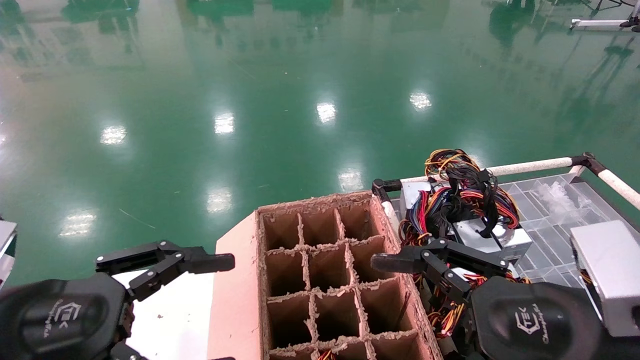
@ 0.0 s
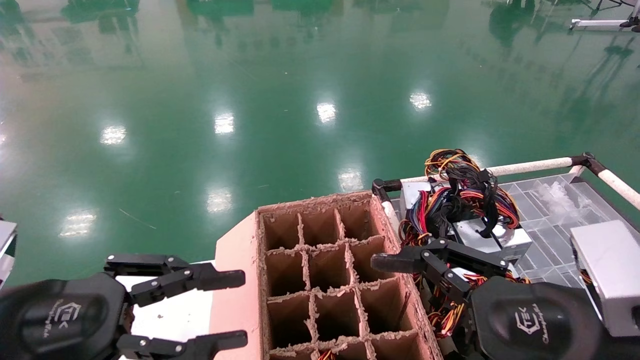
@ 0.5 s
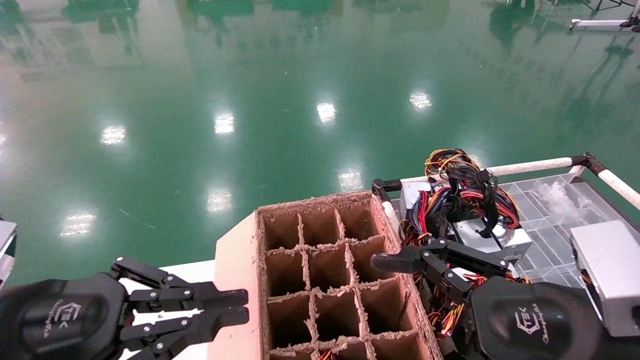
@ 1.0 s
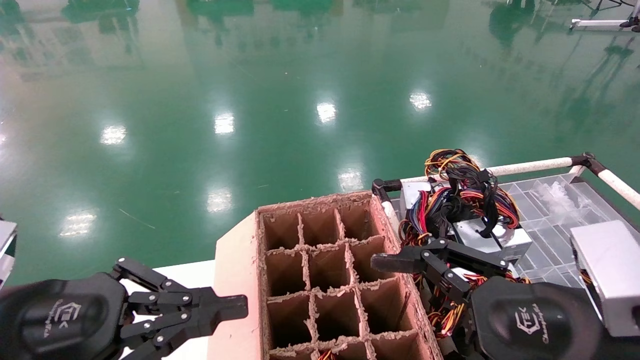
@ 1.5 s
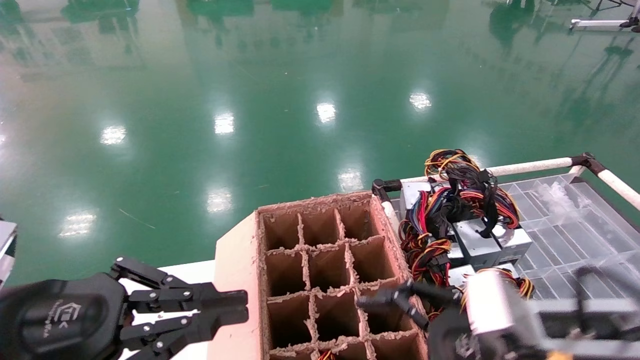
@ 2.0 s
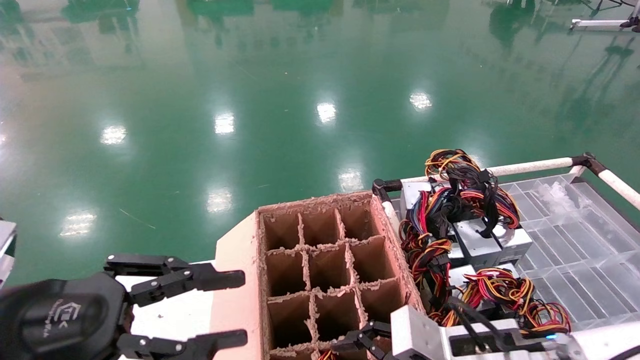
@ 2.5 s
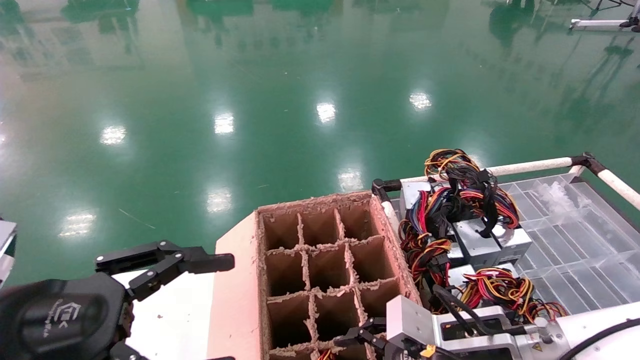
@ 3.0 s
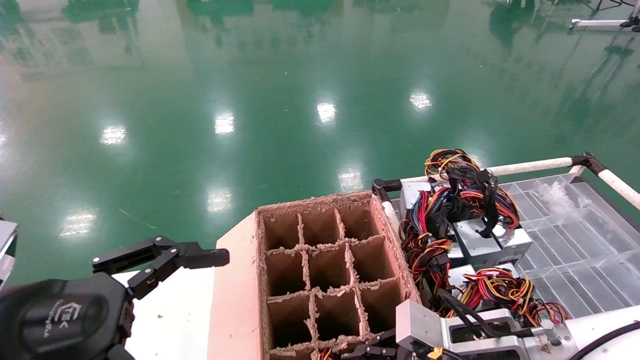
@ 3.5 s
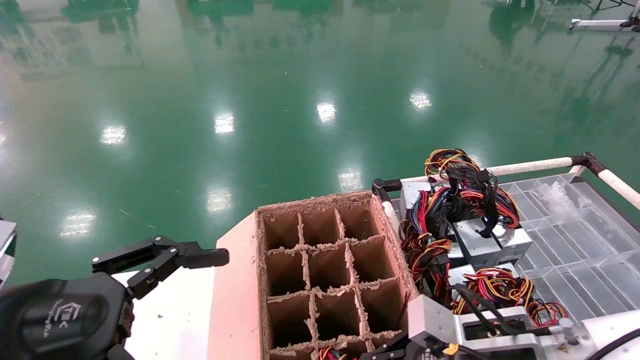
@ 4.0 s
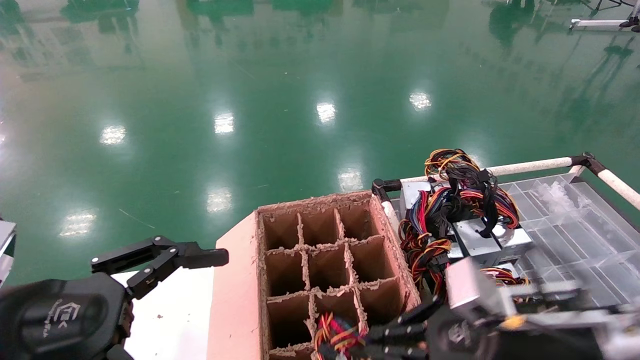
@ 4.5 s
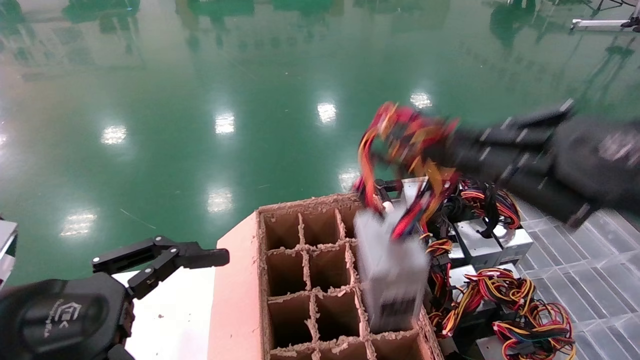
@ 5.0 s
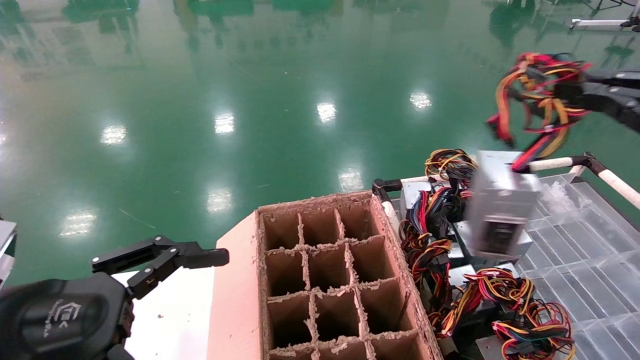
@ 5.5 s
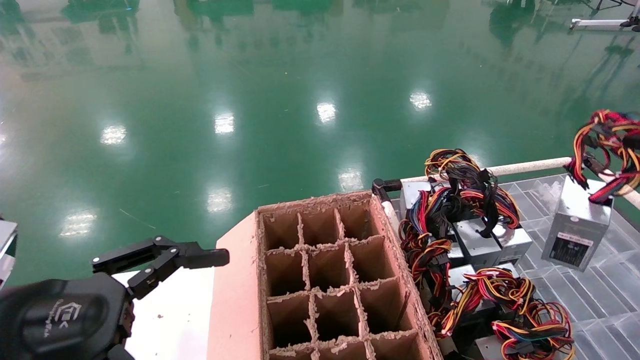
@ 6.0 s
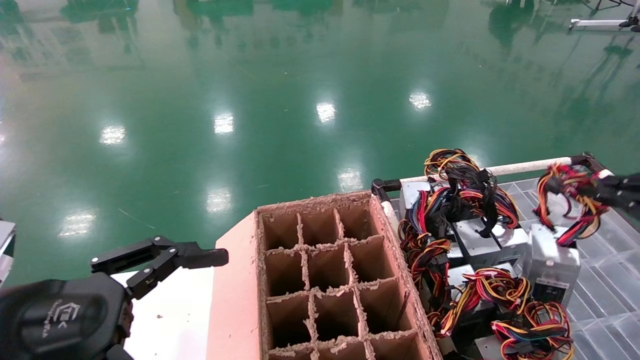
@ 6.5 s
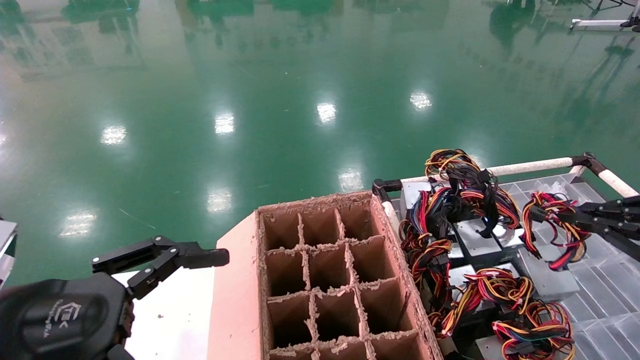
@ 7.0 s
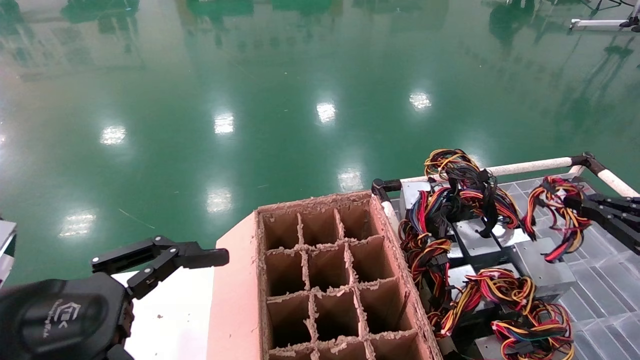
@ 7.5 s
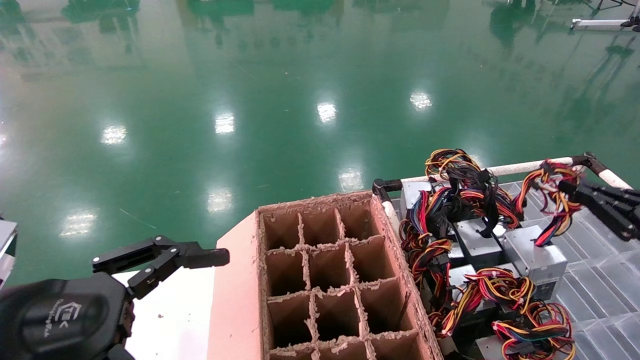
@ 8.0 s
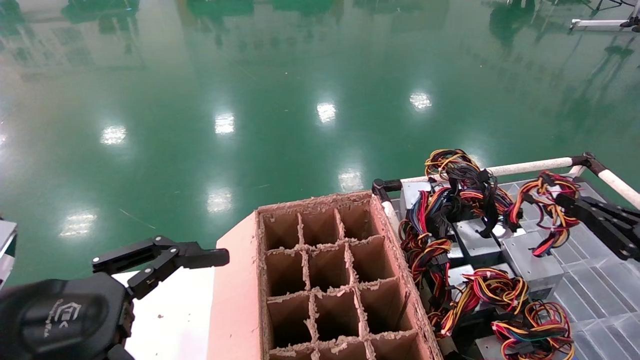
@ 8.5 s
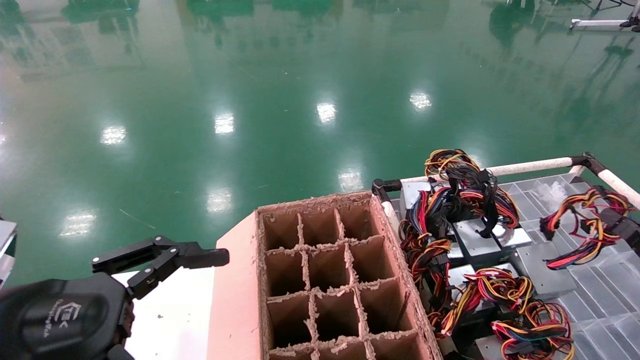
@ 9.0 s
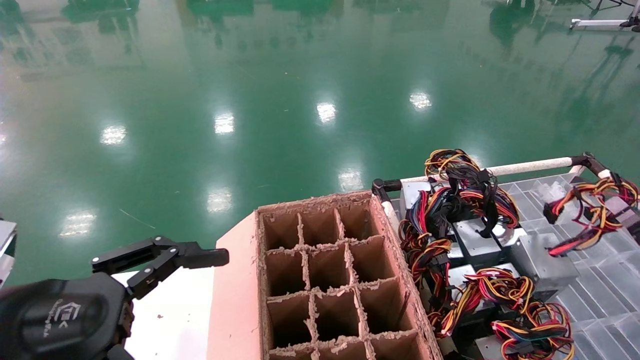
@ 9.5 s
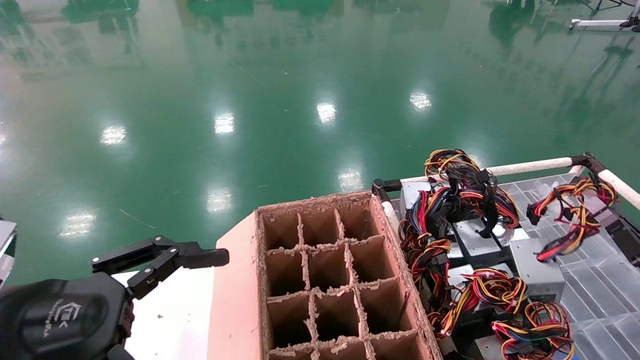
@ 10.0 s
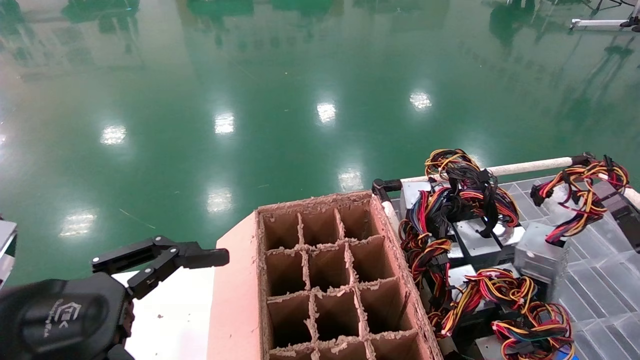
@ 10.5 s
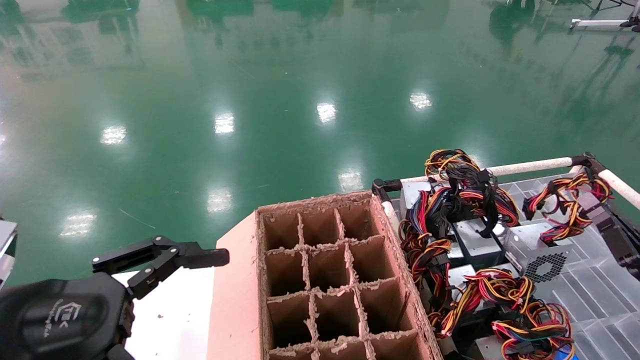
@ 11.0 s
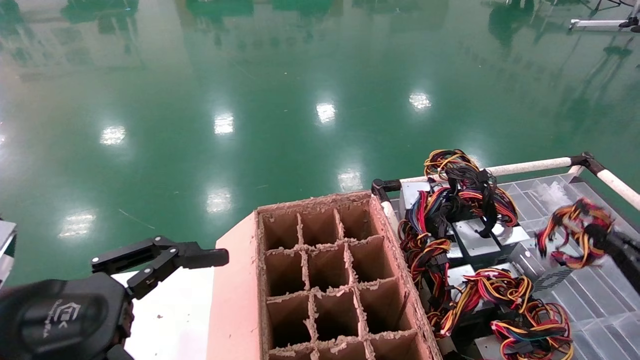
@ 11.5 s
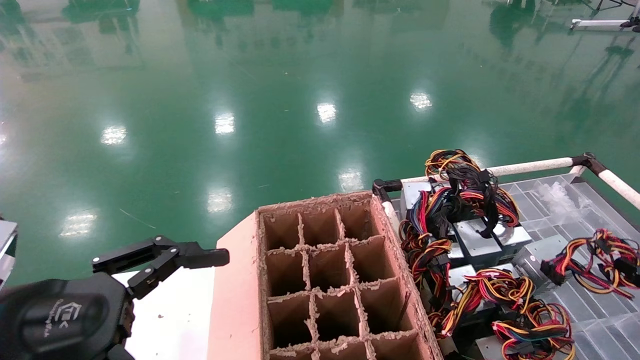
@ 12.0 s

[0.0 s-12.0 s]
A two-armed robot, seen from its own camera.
Step, 1.5 to 4.0 s: Grab and lift the power supply from the large box.
0.0 to 2.0 s: The right gripper travels downward by roughly 5 cm; the left gripper closes up.
2.0 to 4.0 s: The left gripper opens its fingers. Meanwhile the right gripper moves forward, some 5 cm, and closes its fingers.
4.0 to 6.0 s: The right gripper goes roughly 35 cm to the right and upward.
6.0 to 8.0 s: The right gripper goes about 15 cm downward and forward.
8.0 to 10.0 s: The right gripper moves downward, about 10 cm.
10.0 to 12.0 s: The right gripper is displaced backward and to the right by about 10 cm.

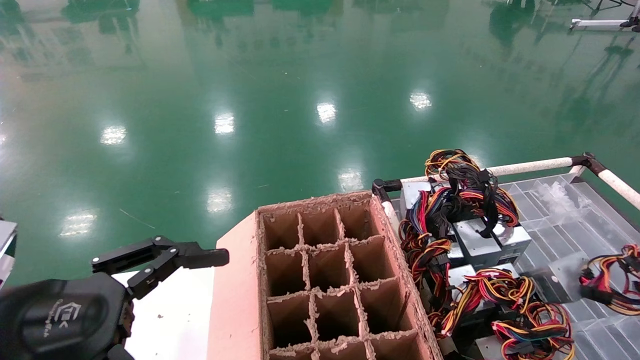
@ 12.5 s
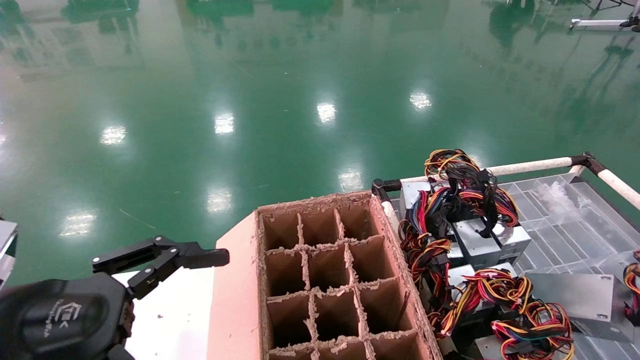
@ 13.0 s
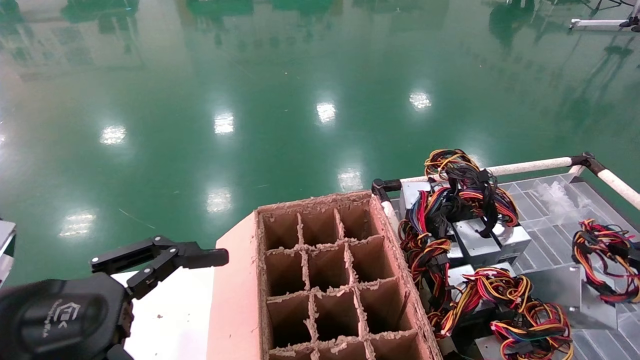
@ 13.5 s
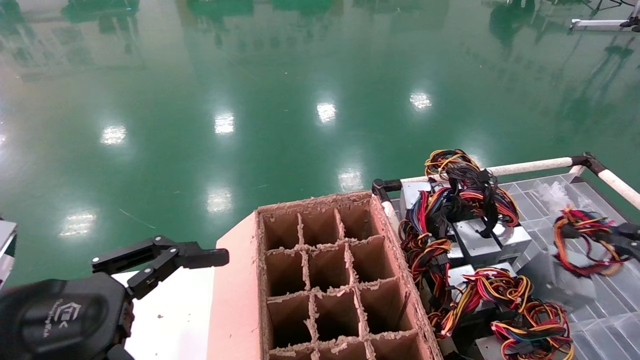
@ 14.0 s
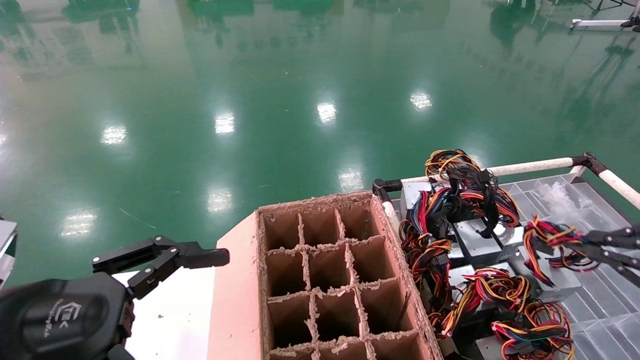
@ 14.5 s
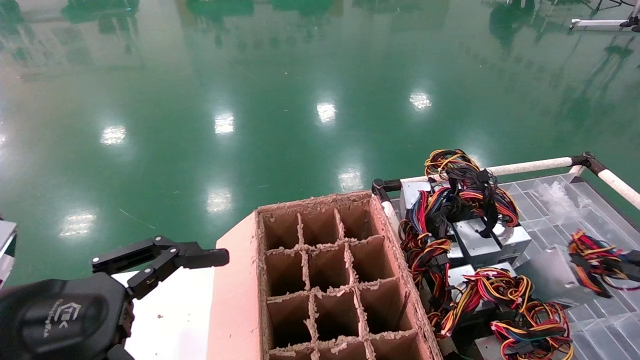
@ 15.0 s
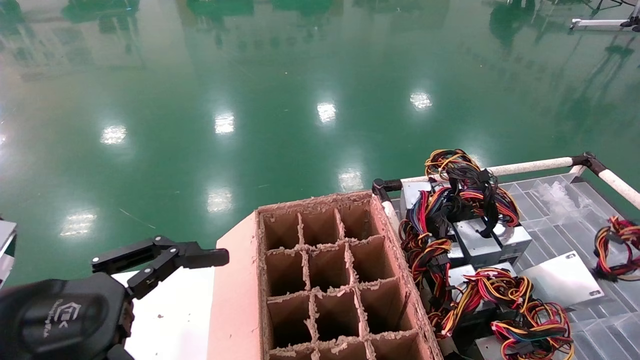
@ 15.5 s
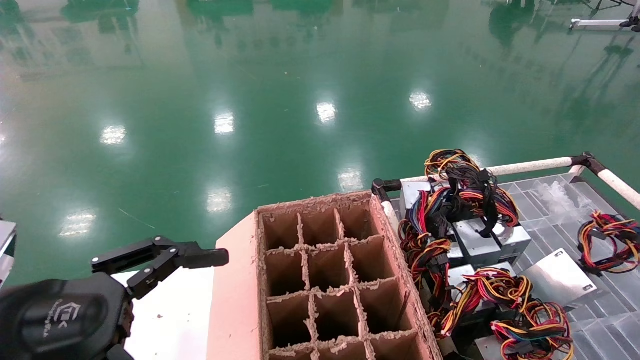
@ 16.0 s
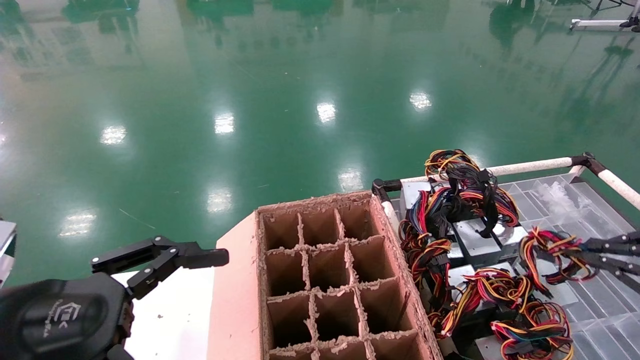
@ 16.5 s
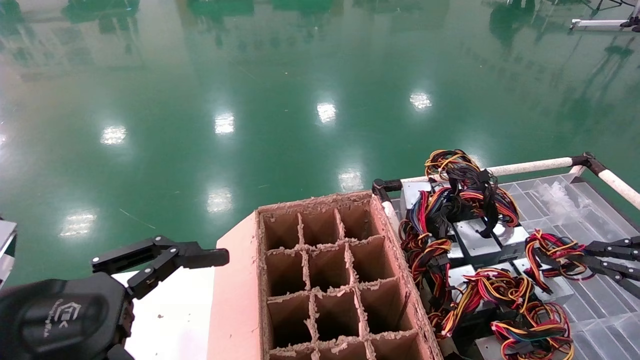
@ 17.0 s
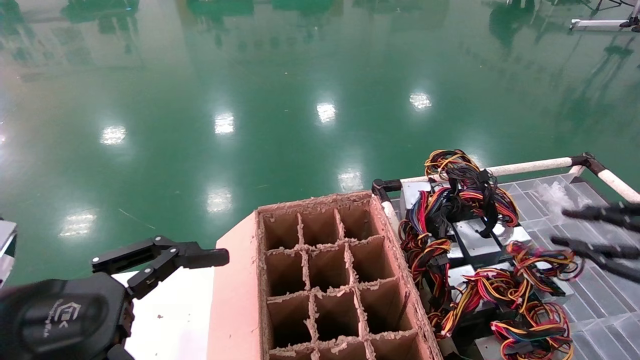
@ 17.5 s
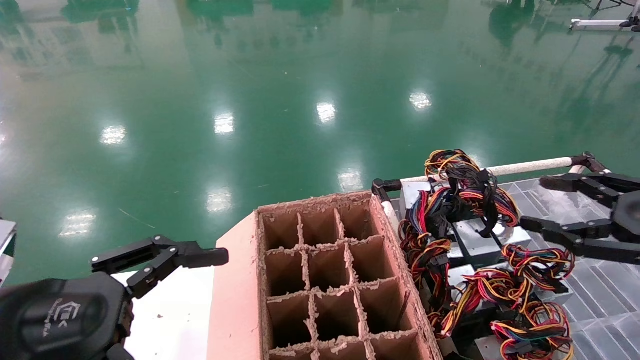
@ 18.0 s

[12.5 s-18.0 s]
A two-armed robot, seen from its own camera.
Step, 12.5 to 17.0 s: Place the power supply on the operating table.
12.5 to 14.5 s: The right gripper moves upward and to the left, some 15 cm.
14.5 to 16.0 s: The right gripper shifts about 5 cm to the right.
16.0 to 18.0 s: The right gripper goes approximately 10 cm to the left, and opens up.
